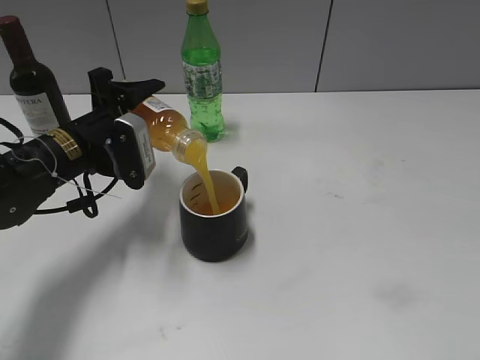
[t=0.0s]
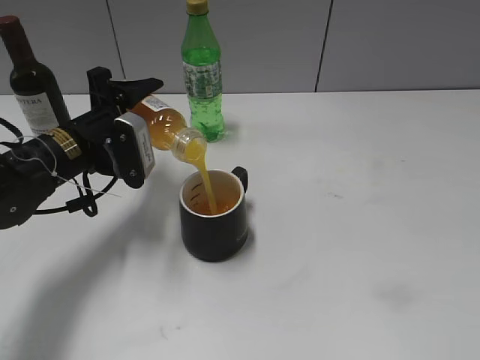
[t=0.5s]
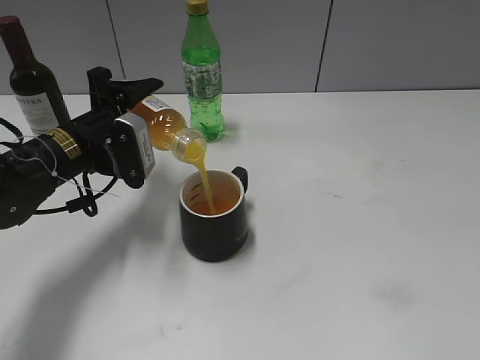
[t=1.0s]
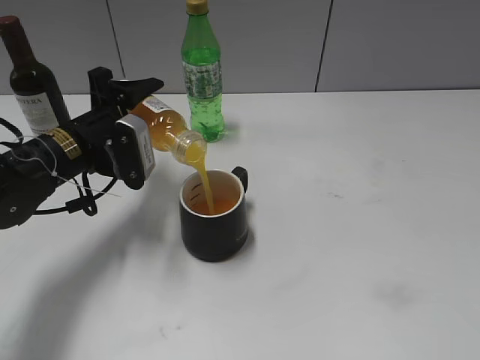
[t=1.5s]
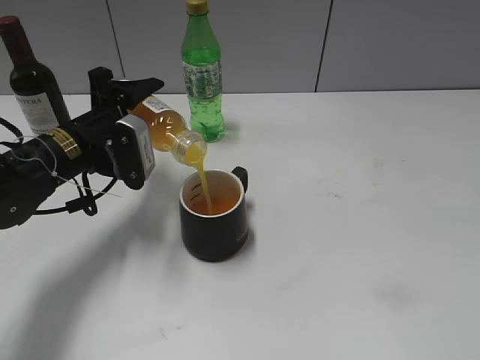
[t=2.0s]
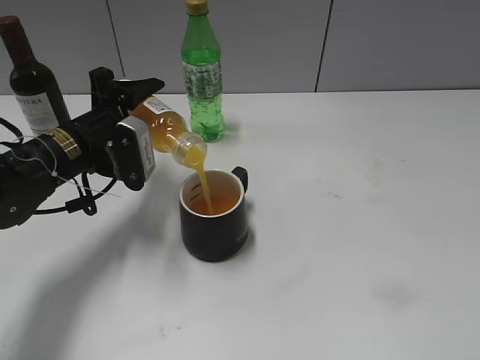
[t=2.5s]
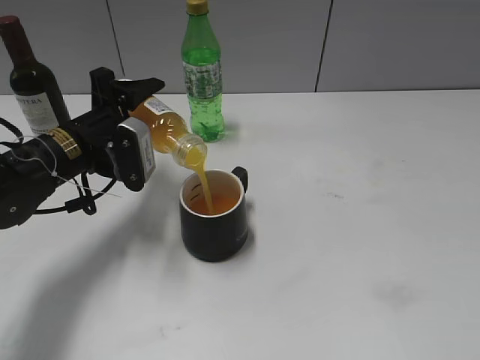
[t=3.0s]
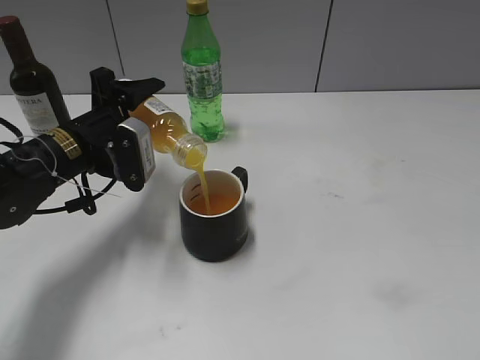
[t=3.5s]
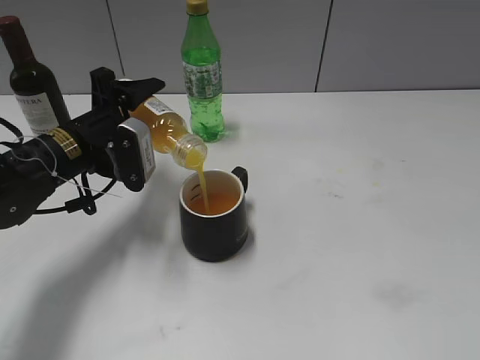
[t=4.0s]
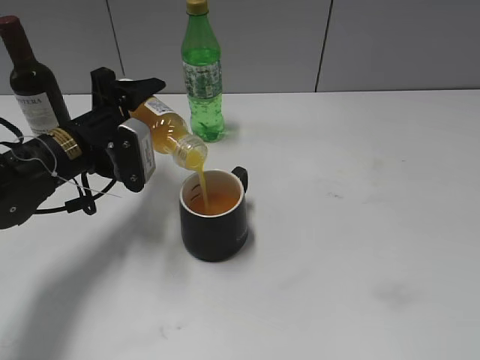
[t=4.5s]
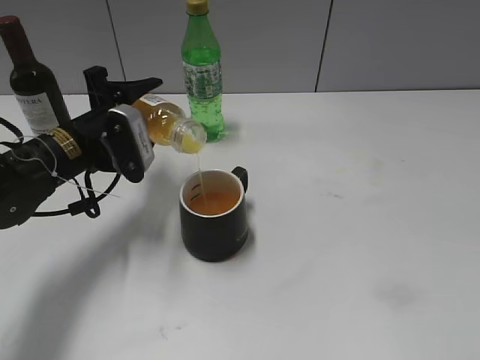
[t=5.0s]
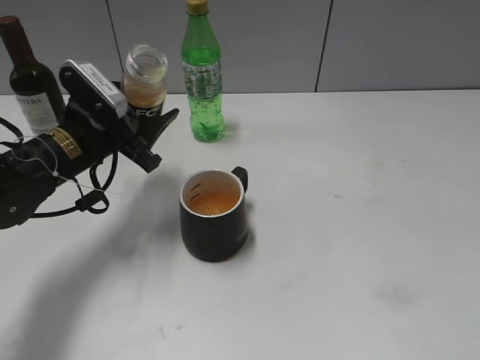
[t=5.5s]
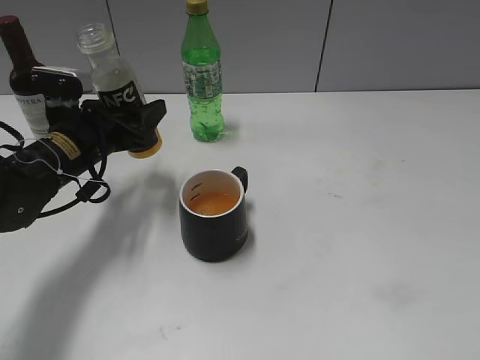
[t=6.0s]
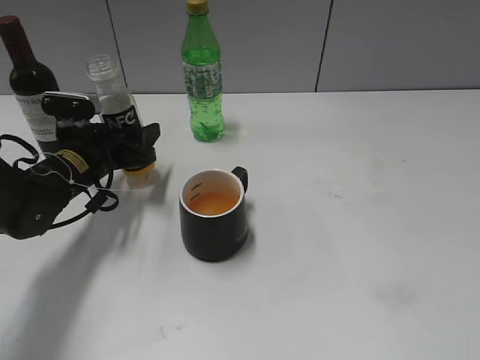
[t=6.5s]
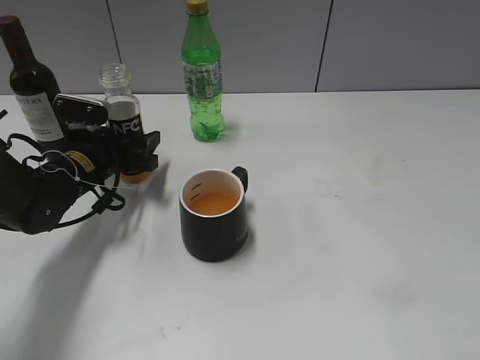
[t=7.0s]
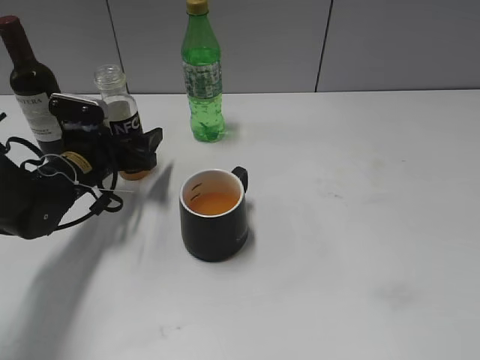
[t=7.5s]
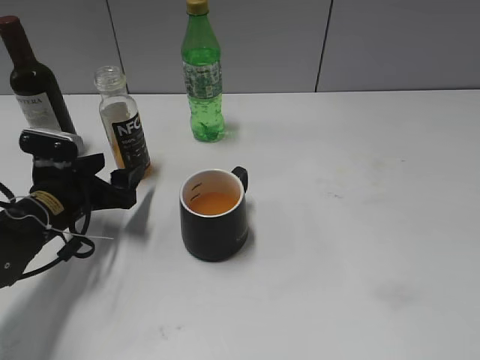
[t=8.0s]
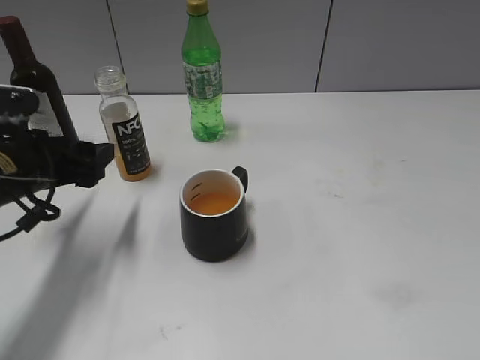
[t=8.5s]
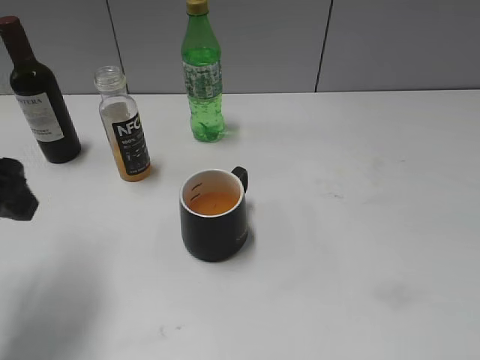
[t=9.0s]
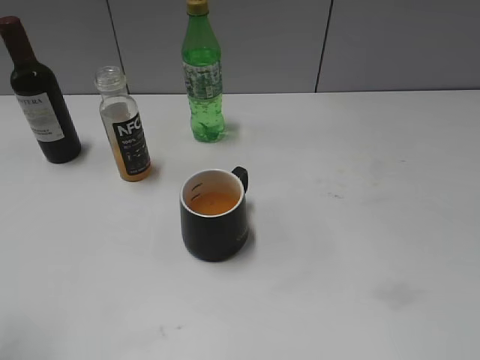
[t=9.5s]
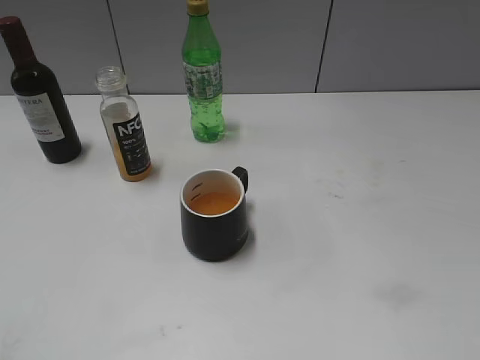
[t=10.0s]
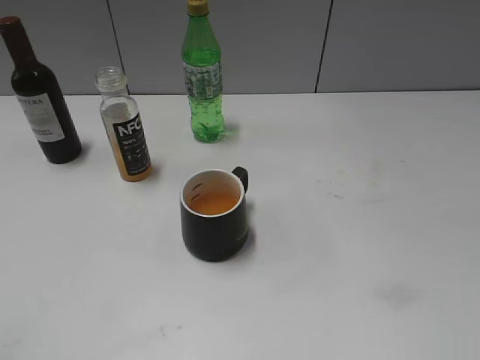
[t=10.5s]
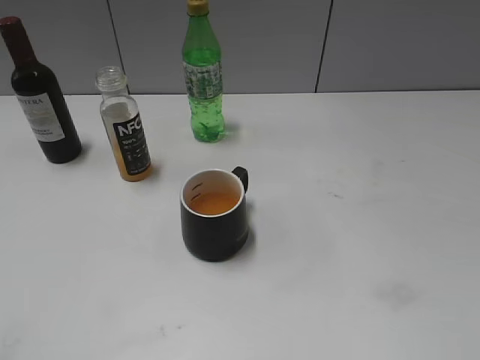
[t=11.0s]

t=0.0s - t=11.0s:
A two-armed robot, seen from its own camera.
Step, t=0.0s - t=5.0s: Pour the orange juice from bottle to cup with left gripper.
Step, t=5.5s - t=7.5s: Place the orange juice bottle on the table with left gripper.
t=0.0s - t=3.5s: Both grippers stay about where they are.
t=5.5s - t=7.5s: The left gripper heads downward, covering some 5 cm, and opens up.
t=7.5s - t=9.0s: The left gripper goes about 20 cm upward and backward.
t=9.0s - t=11.0s: The left gripper is displaced backward by about 25 cm.

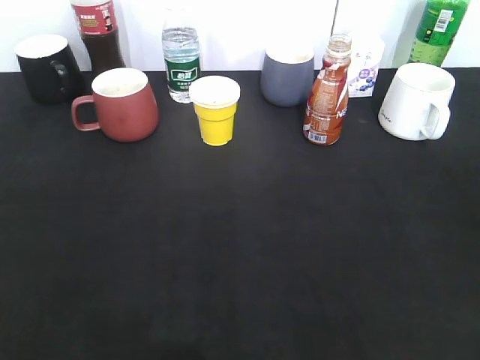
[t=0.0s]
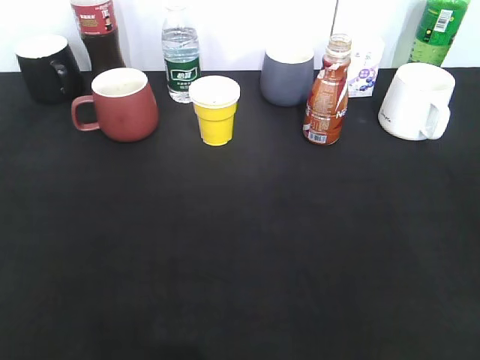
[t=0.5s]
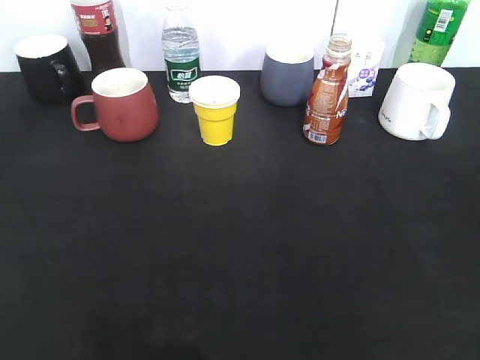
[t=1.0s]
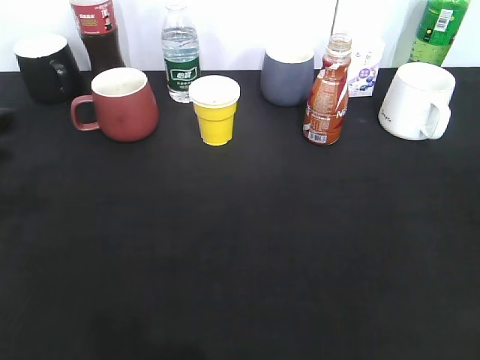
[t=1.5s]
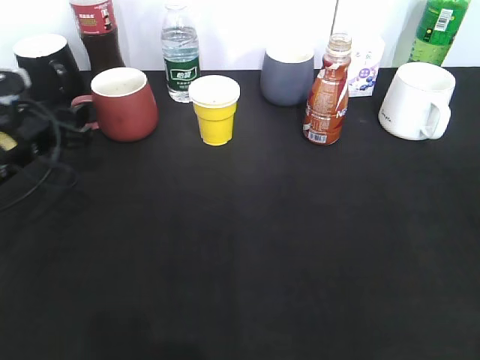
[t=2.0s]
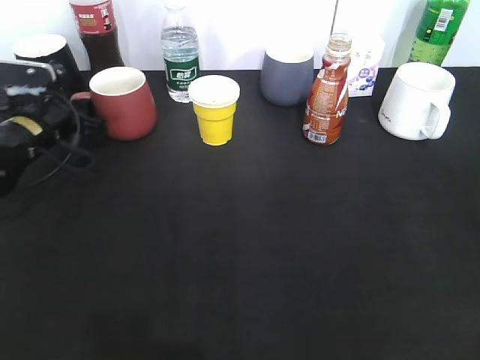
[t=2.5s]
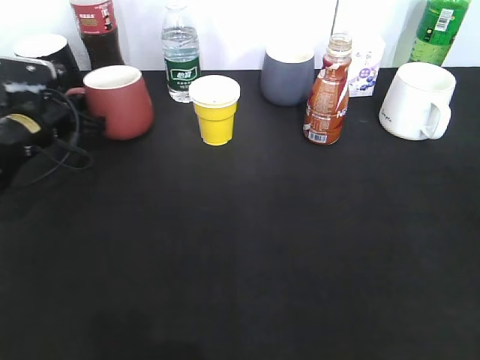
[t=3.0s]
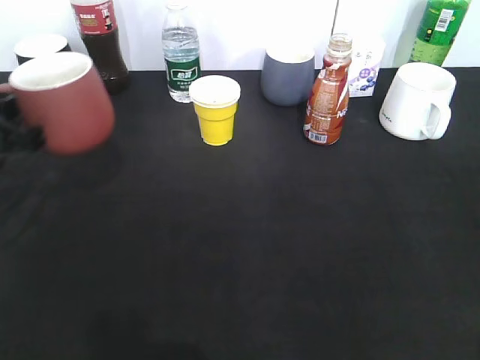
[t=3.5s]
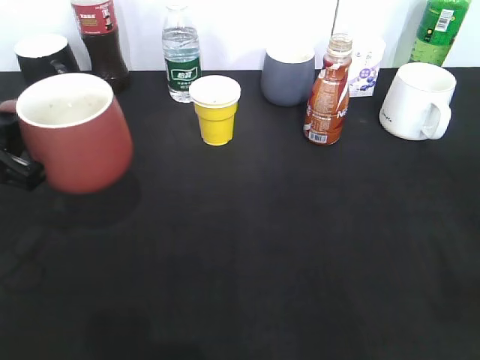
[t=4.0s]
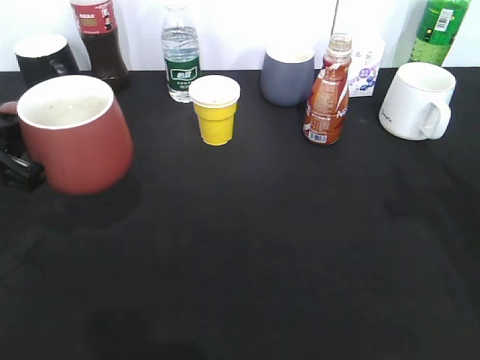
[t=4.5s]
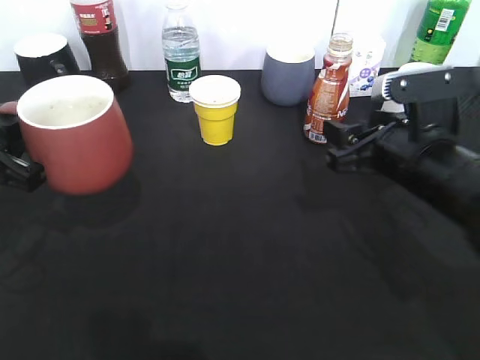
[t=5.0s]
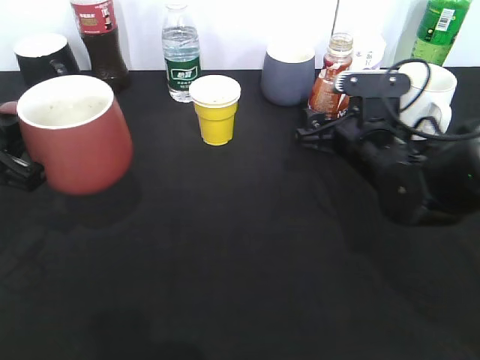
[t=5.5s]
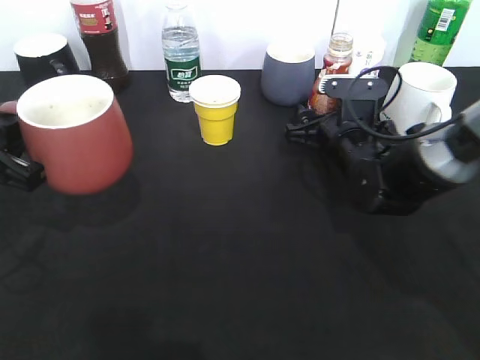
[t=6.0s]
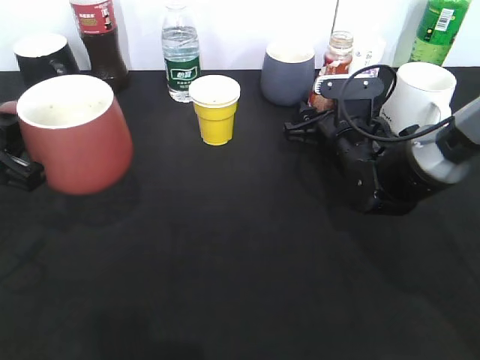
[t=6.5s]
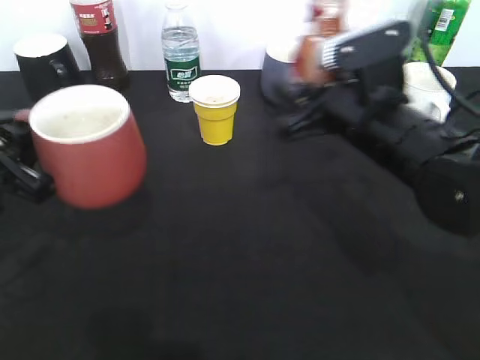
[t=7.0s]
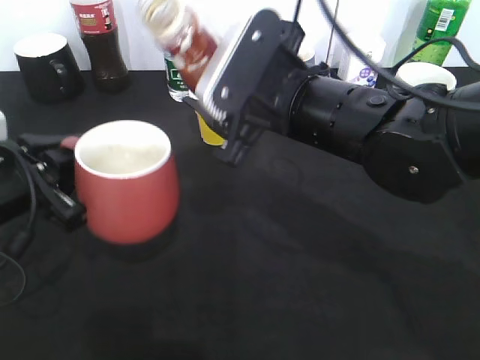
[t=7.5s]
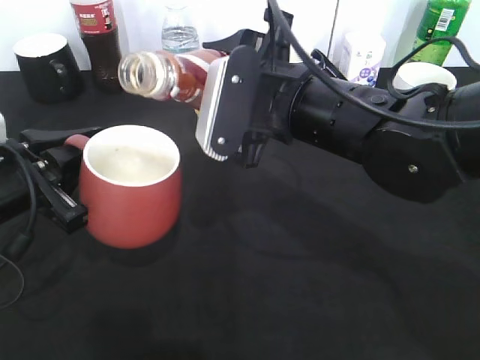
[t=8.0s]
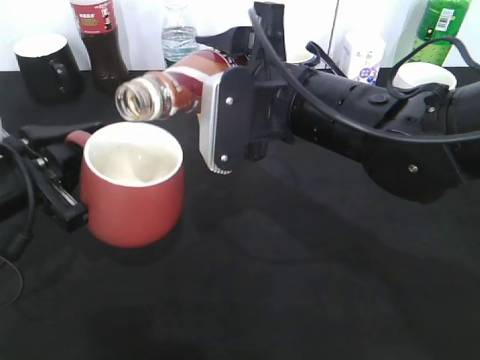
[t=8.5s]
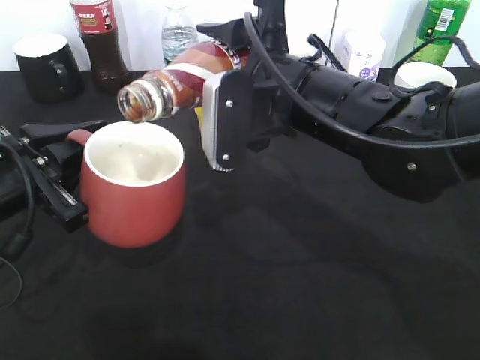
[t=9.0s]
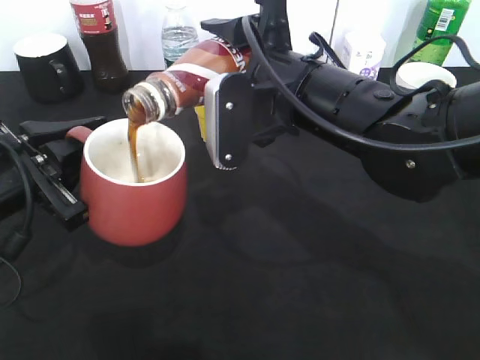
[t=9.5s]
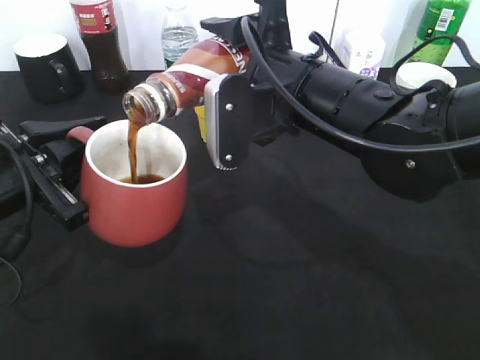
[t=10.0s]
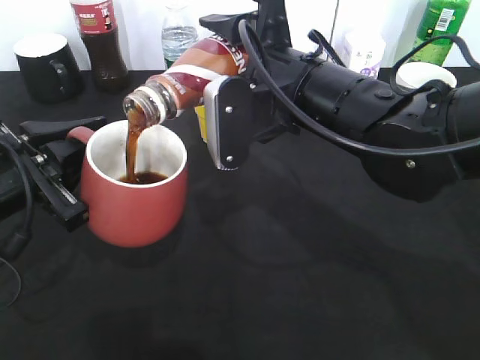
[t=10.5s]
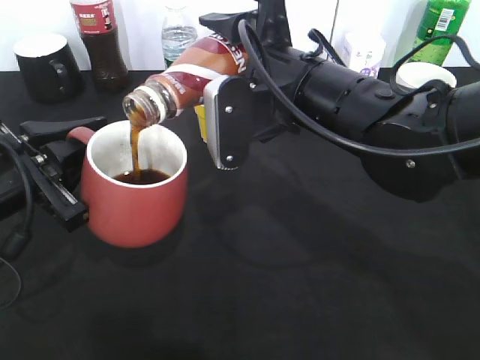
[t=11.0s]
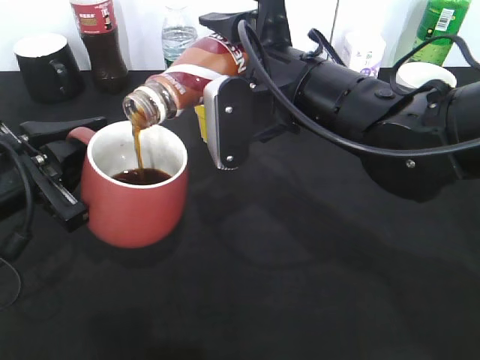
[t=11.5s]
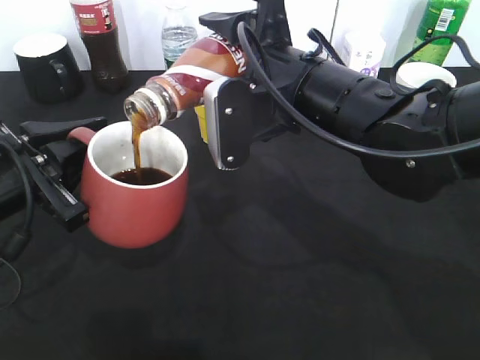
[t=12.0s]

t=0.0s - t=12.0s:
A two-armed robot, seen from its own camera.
Step, t=2.0s - t=2.5s: Grasp the red cup with left gripper.
Step, t=3.0s - t=4.5s: Lift the red cup with left gripper.
Step, t=5.0s - t=6.0s: Grasp the bottle with coffee with right gripper.
t=0.0s - t=2.0s: The left gripper heads forward and downward, covering approximately 35 cm.
t=2.0s - t=4.0s: The right gripper moves forward, some 5 cm. Meanwhile the left gripper travels backward and upward by approximately 15 cm, and closes its fingers.
t=4.0s - t=6.0s: The right gripper goes some 40 cm forward, downward and to the left.
t=6.0s - t=8.0s: The right gripper goes roughly 20 cm upward, backward and to the left, and closes.
t=10.0s - t=12.0s: Neither gripper changes place.

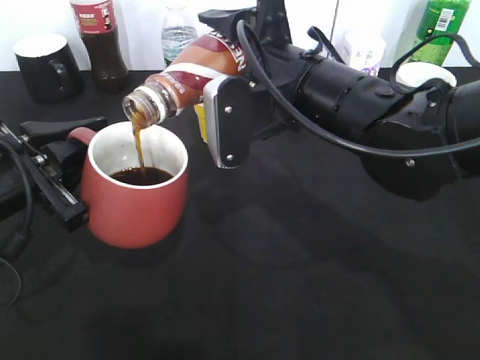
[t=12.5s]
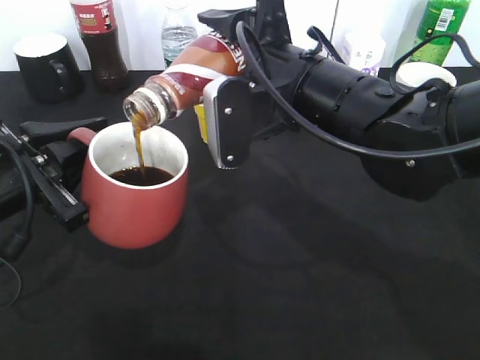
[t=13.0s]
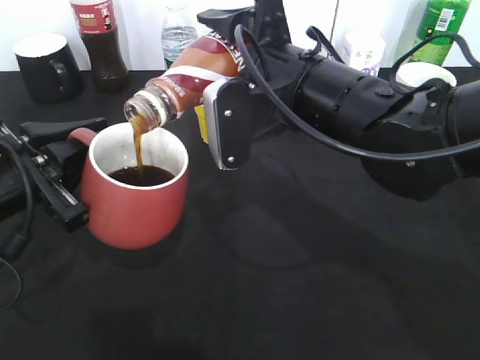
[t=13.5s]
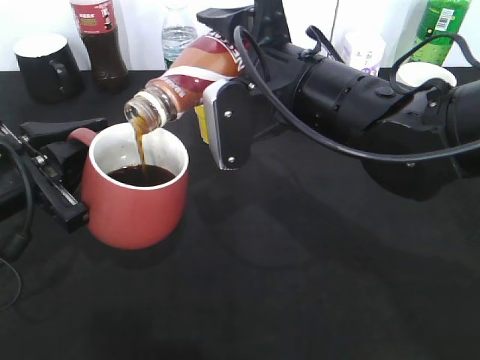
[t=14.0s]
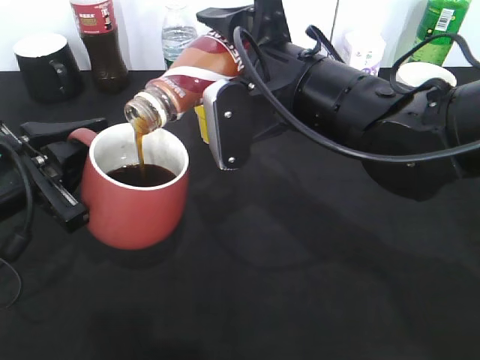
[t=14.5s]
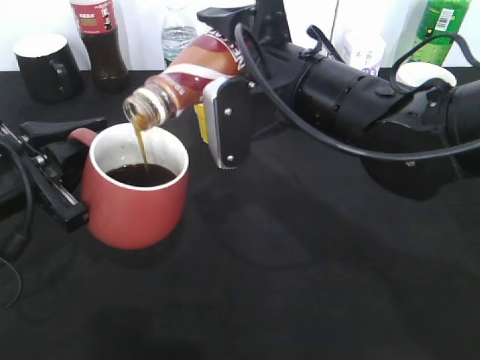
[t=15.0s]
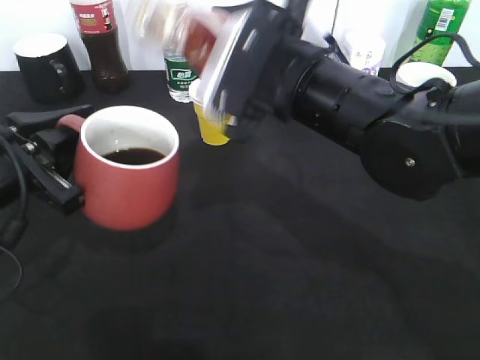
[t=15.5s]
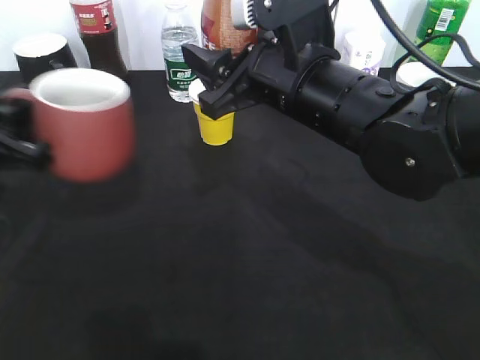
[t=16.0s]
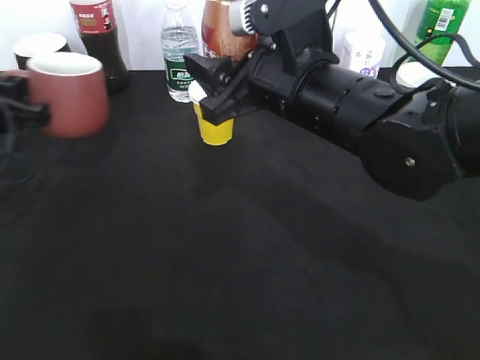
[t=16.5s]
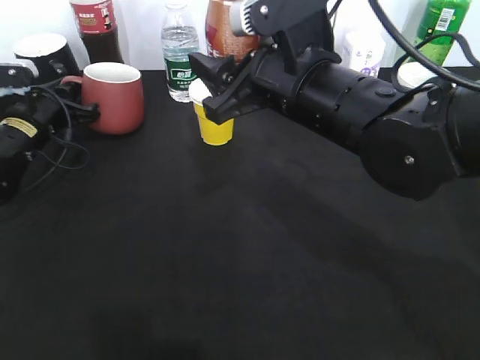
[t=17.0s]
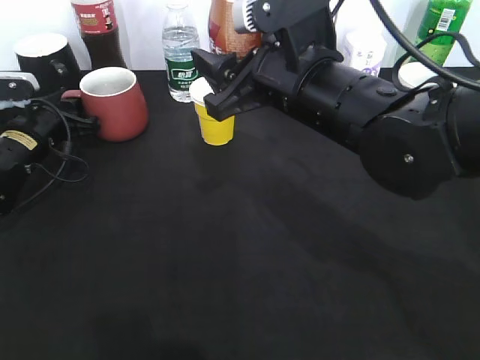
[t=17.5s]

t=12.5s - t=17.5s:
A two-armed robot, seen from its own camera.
t=12.5s - t=15.0s: Both grippers stay put.
t=15.0s - t=17.5s: The left gripper heads forward and downward, covering approximately 20 cm, and opens its fingers.
